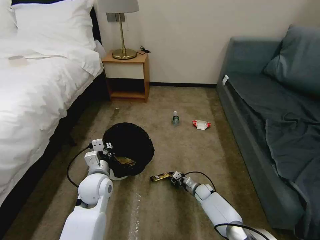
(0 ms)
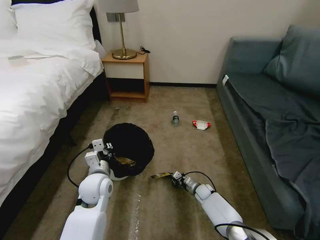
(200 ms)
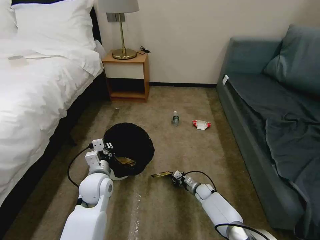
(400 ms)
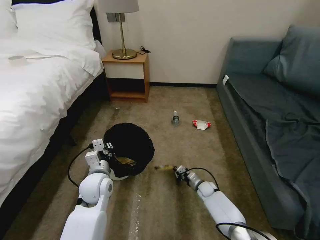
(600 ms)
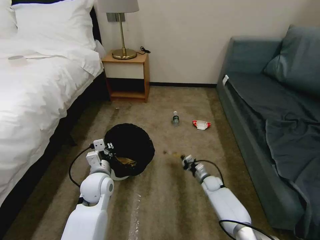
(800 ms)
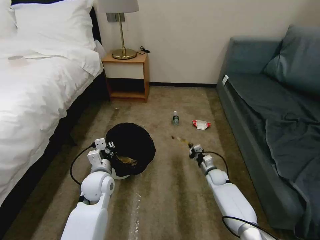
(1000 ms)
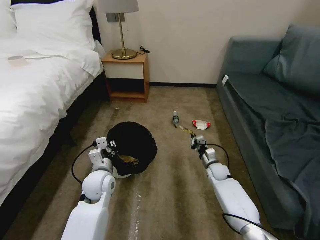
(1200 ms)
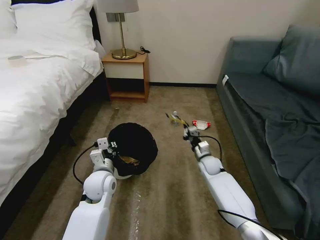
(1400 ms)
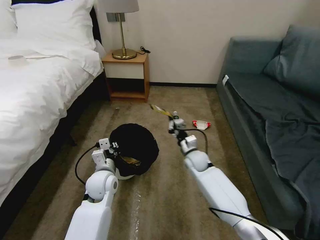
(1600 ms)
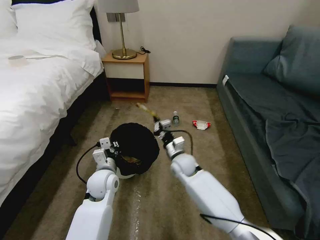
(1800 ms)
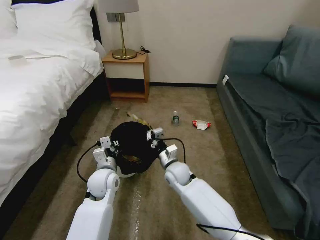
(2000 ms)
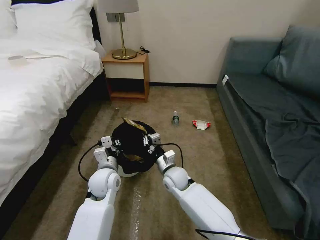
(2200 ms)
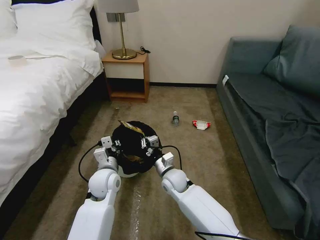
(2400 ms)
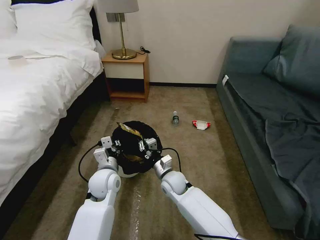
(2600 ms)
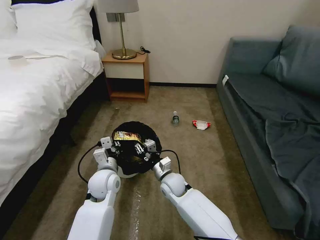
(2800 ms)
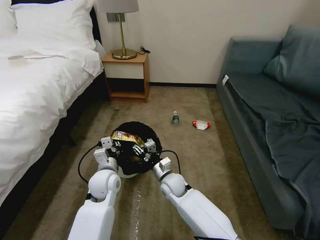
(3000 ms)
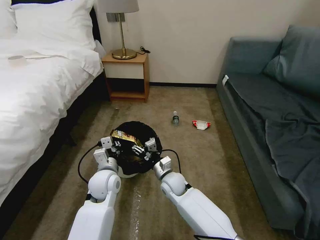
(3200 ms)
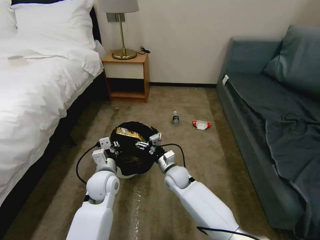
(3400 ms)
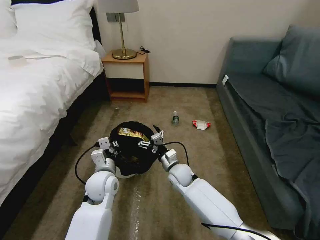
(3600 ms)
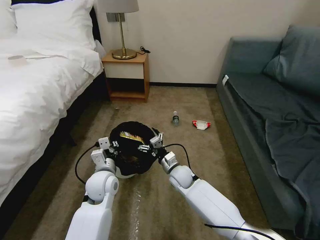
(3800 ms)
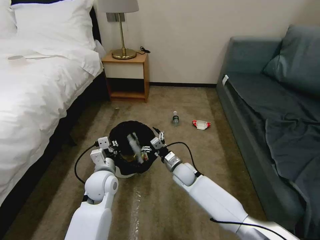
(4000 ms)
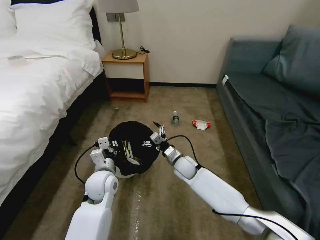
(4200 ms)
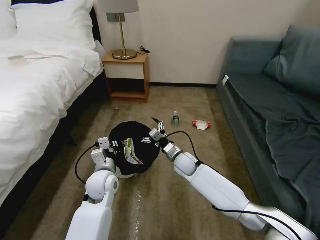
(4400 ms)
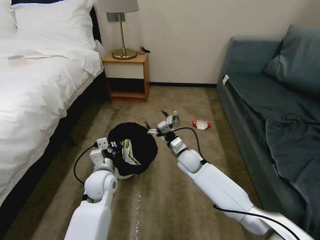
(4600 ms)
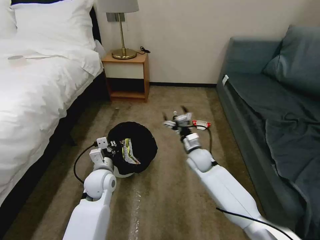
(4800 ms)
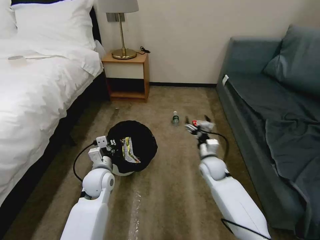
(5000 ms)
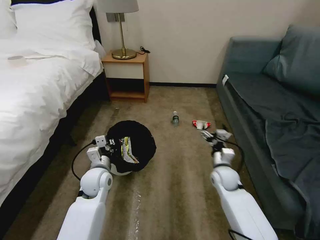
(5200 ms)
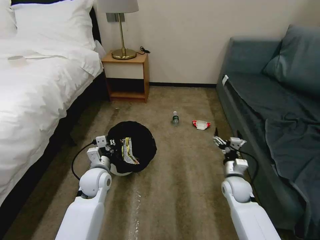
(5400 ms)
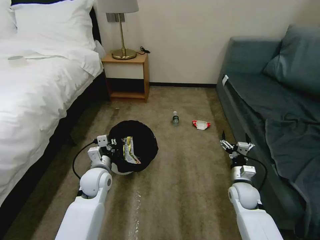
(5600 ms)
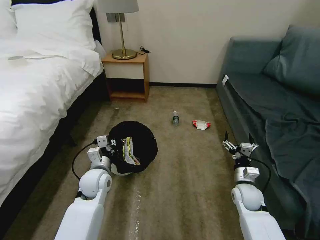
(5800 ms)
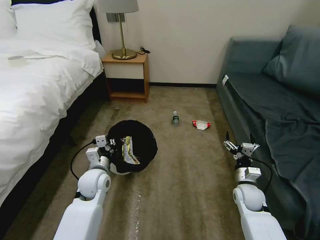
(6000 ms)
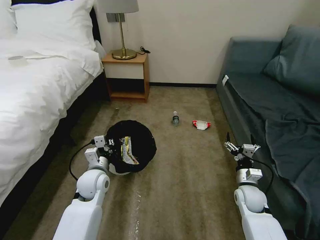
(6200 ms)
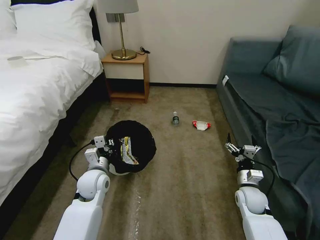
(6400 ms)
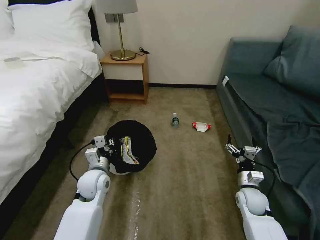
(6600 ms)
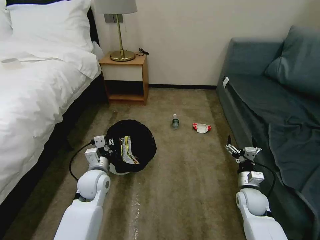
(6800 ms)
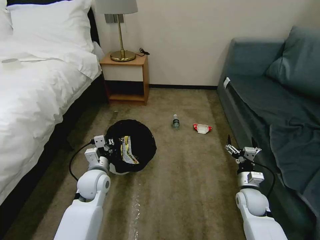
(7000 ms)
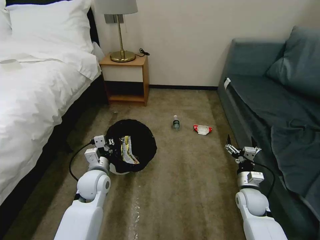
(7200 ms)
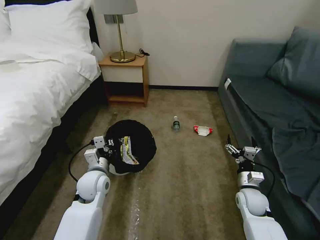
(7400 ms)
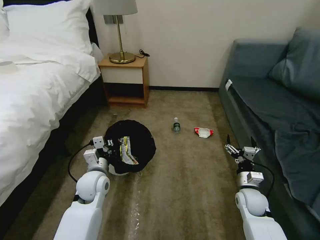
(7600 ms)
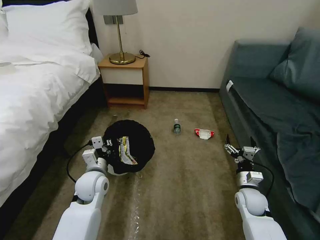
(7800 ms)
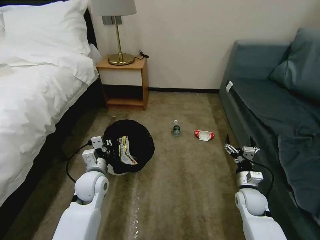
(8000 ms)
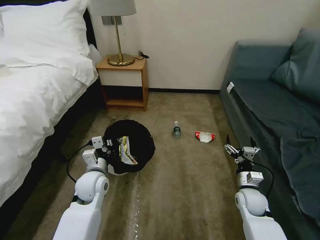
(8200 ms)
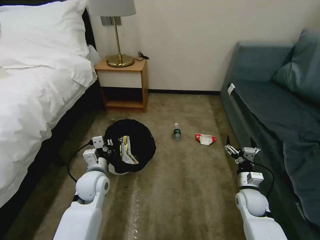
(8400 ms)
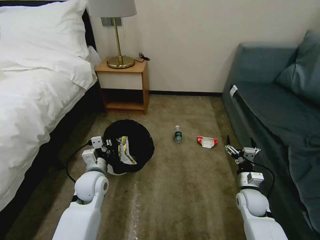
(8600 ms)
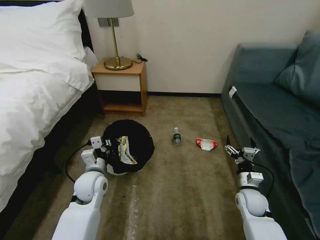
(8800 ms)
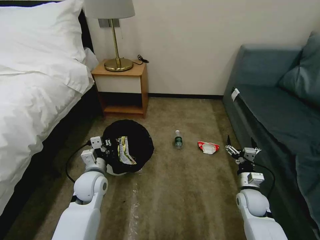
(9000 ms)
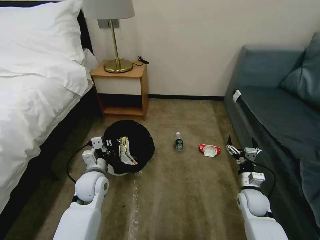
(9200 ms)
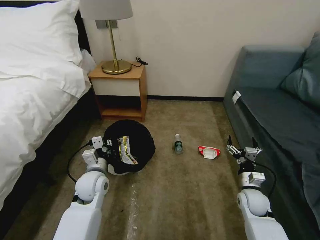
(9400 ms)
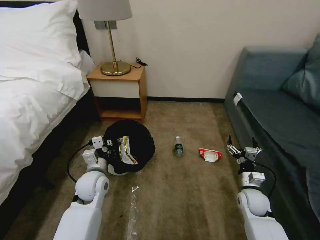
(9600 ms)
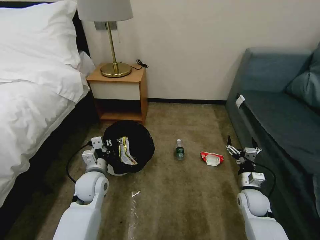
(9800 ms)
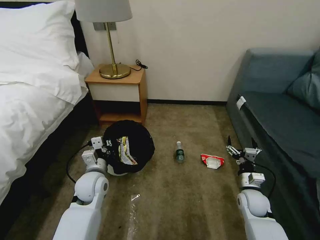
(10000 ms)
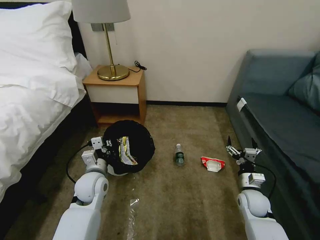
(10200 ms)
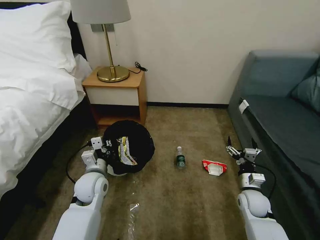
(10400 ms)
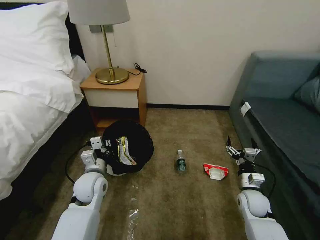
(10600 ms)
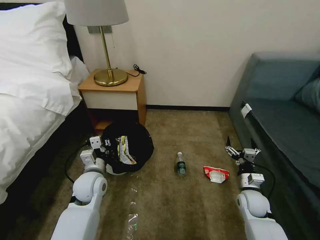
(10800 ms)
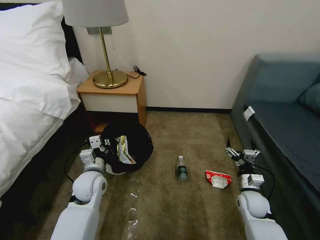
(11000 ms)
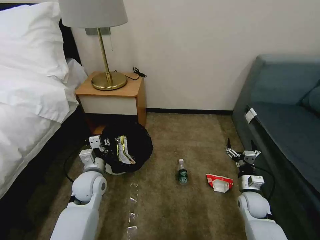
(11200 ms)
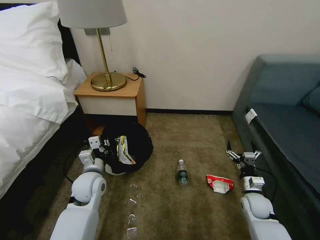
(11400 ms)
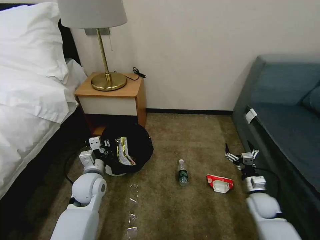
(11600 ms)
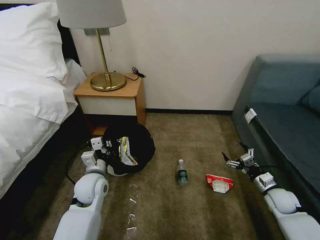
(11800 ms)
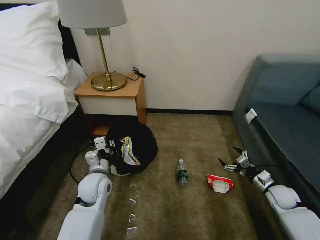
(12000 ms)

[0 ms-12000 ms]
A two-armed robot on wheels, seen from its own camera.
Task of the whole recording: Pick up the trash bin, then pick up the garbage on the floor and place it into the trash bin.
0 ms to 1600 ms: The right gripper moves upward, approximately 20 cm.
1600 ms to 3000 ms: The right gripper moves to the left and backward, approximately 15 cm, and opens up.
3000 ms to 4400 ms: The right gripper travels forward and to the right by some 10 cm, and opens its fingers.
4400 ms to 6000 ms: The right gripper heads to the right and backward, covering about 25 cm.
6000 ms to 7600 ms: The grippers stay close to where they were, moving slightly.
7600 ms to 10400 ms: Both grippers stay put.
10400 ms to 12000 ms: The right gripper is displaced to the right by some 15 cm.

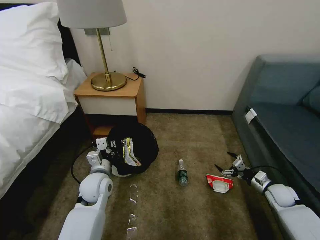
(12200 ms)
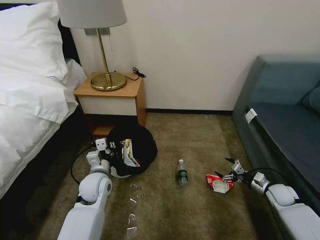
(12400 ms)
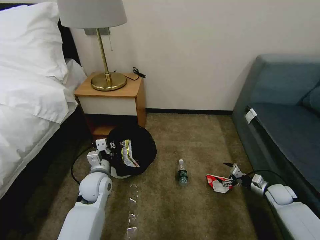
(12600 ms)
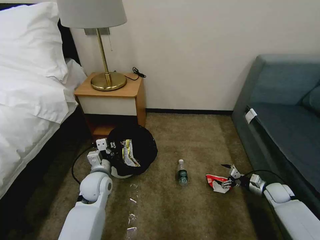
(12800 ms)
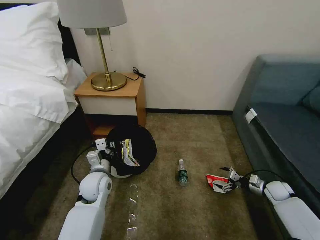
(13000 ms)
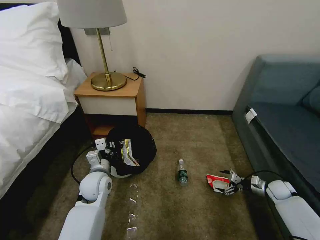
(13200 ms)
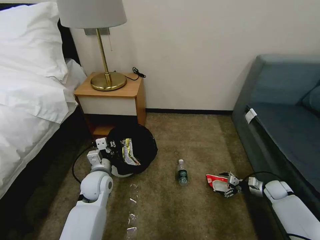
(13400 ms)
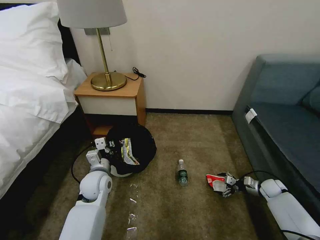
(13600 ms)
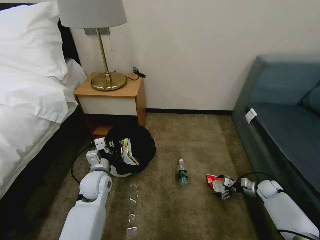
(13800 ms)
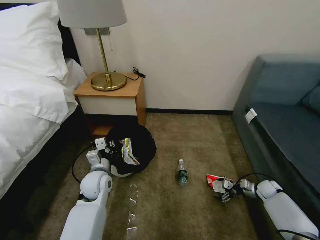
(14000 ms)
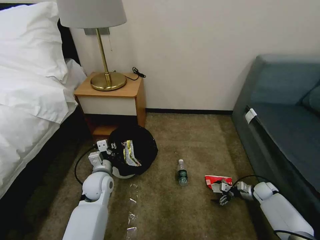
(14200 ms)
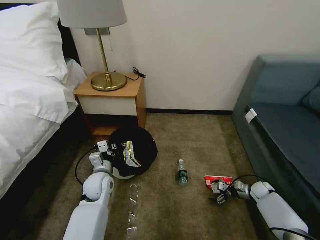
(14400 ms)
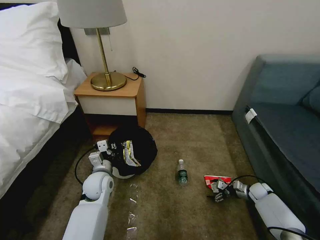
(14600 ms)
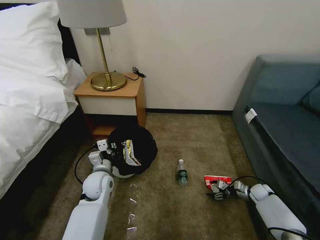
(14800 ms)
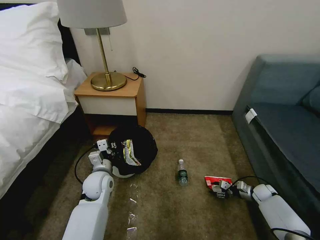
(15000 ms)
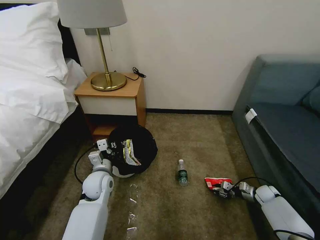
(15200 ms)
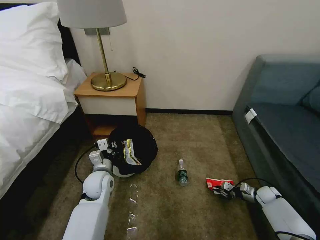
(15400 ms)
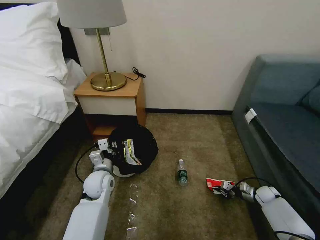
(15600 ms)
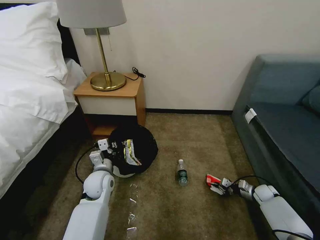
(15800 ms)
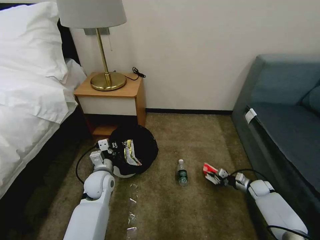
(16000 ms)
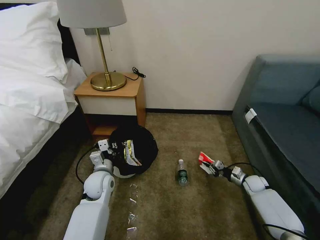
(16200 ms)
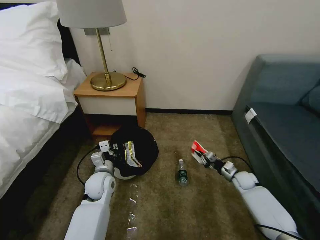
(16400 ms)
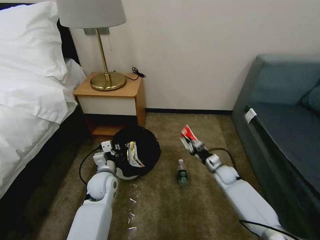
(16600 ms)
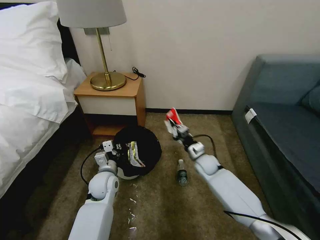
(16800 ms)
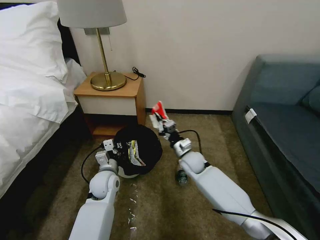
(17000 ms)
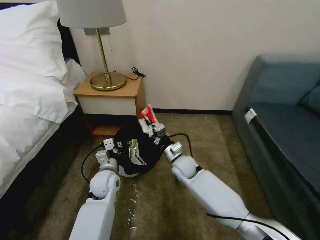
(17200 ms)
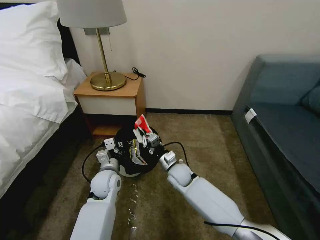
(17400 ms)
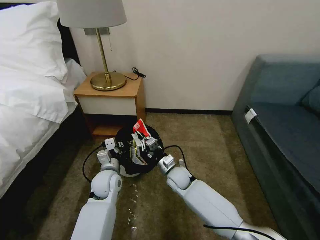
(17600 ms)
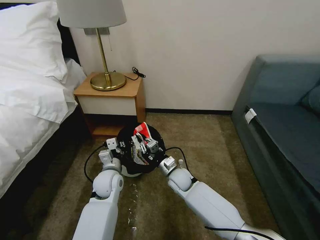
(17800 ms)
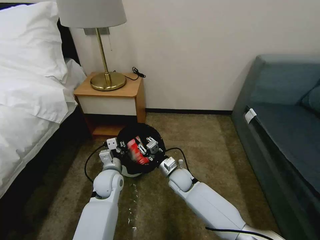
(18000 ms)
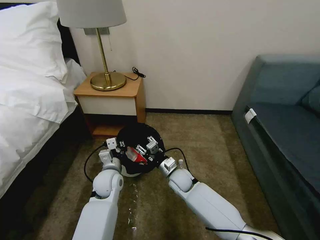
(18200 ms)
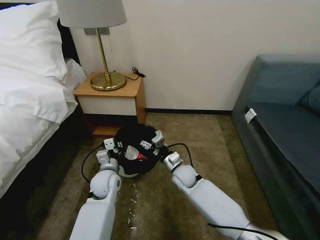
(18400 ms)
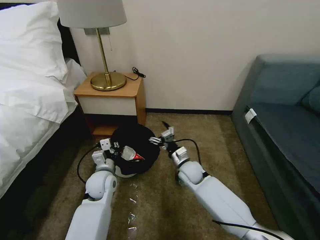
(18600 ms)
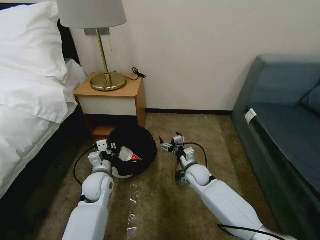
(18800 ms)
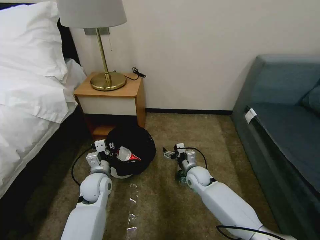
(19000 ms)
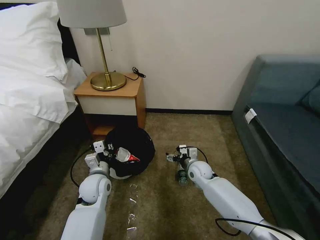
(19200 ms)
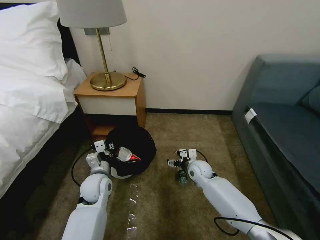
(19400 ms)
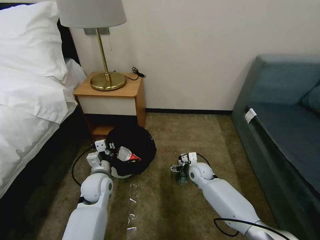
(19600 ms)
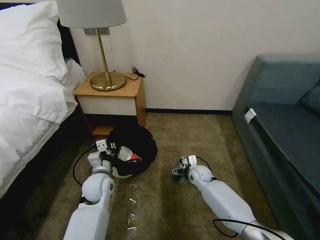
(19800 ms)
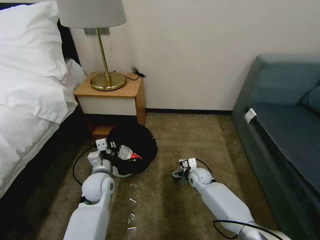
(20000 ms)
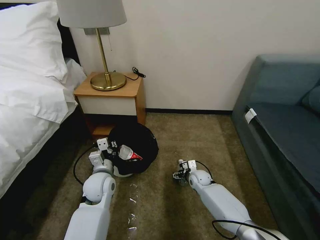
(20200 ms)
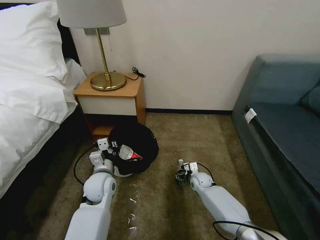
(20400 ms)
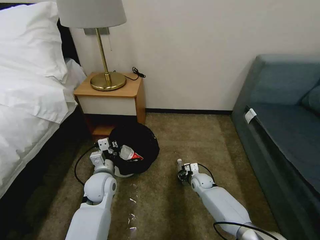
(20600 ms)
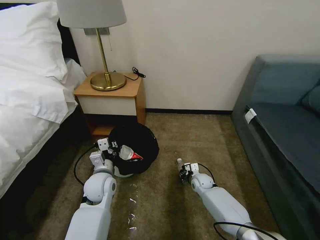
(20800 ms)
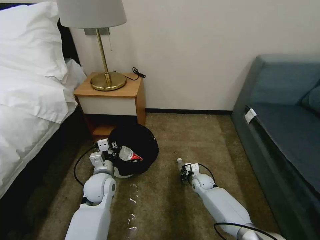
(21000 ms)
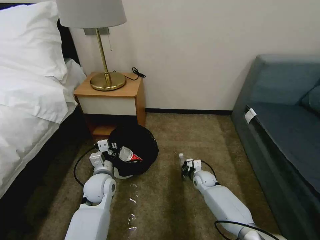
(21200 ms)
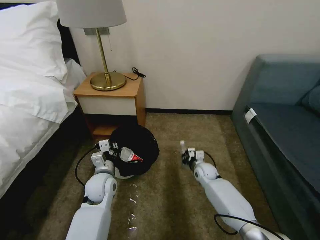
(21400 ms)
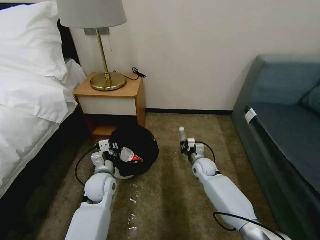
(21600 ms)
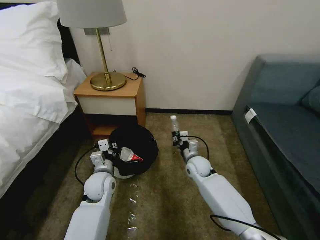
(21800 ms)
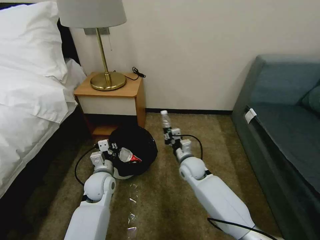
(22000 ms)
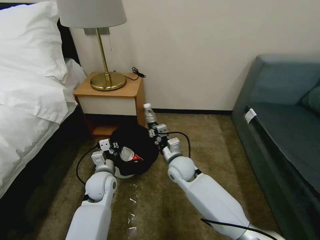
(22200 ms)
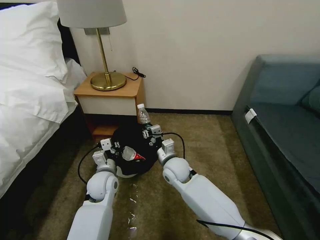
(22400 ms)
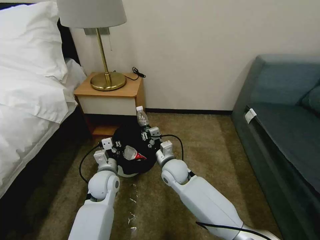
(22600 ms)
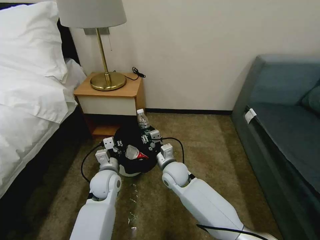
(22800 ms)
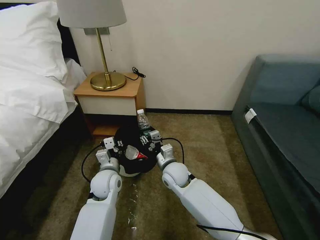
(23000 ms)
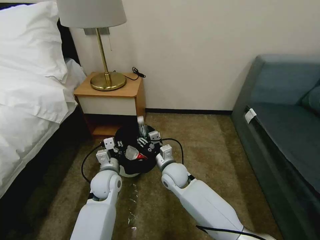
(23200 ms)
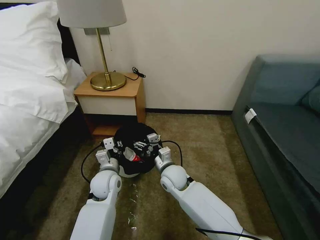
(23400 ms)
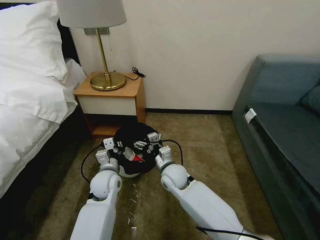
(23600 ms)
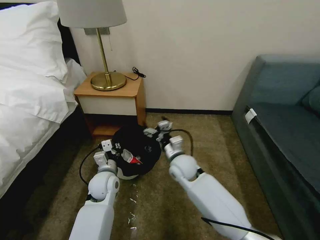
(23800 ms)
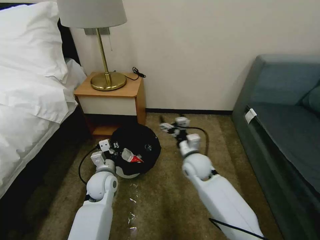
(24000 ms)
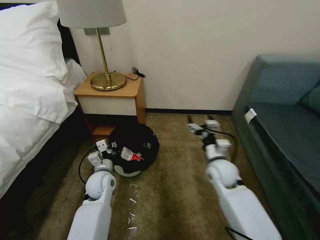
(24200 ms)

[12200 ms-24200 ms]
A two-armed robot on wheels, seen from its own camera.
Task of the whole recording: Pick up the trash bin, then pick up the garbage on the floor and place it into the trash bin.
12200 ms to 13800 ms: The right gripper is displaced downward by about 5 cm.
13800 ms to 15200 ms: The right gripper closes up.
15200 ms to 16600 ms: The right gripper heads to the left, covering about 20 cm.
16600 ms to 18200 ms: The right gripper goes approximately 20 cm to the left, and opens its fingers.
18200 ms to 19800 ms: The right gripper goes approximately 10 cm to the right, and opens.
19800 ms to 21200 ms: The right gripper changes place by approximately 5 cm, and closes up.
21200 ms to 22600 ms: The right gripper goes some 25 cm upward and to the left.
22600 ms to 24200 ms: The right gripper goes approximately 15 cm to the right, and opens up.
